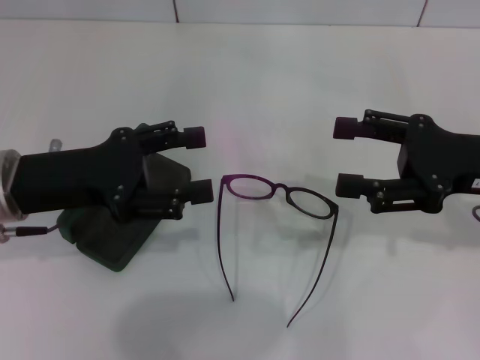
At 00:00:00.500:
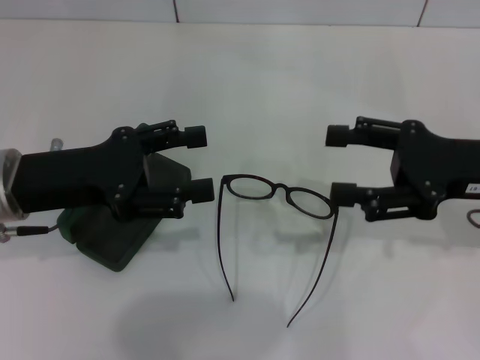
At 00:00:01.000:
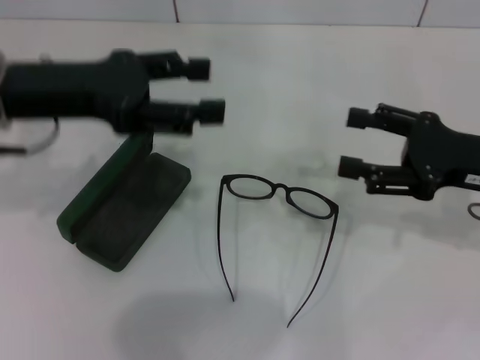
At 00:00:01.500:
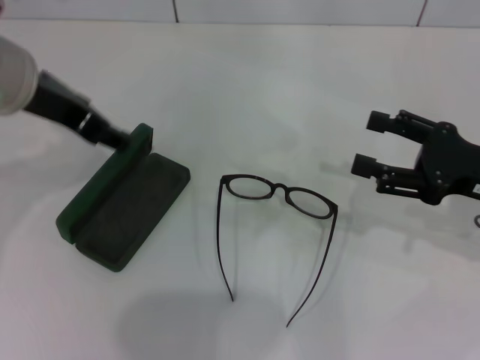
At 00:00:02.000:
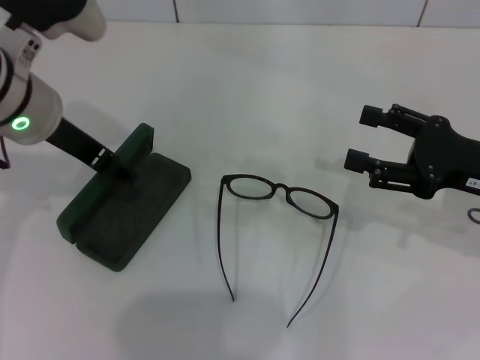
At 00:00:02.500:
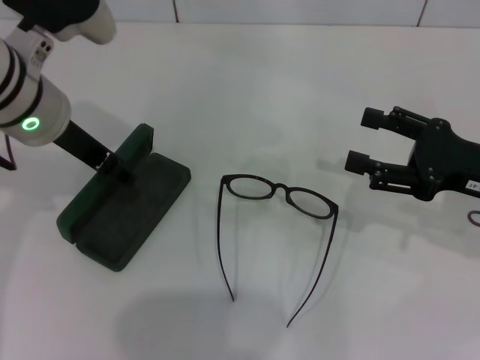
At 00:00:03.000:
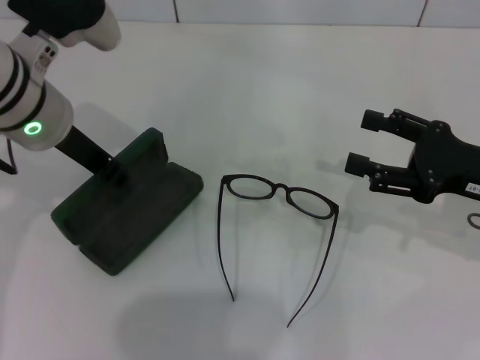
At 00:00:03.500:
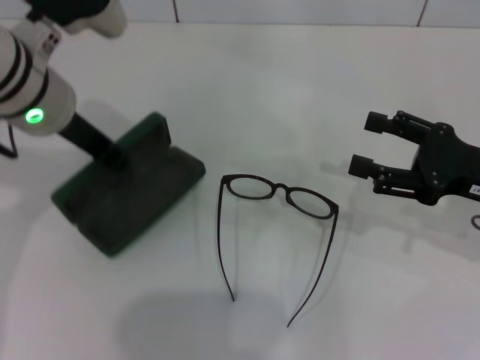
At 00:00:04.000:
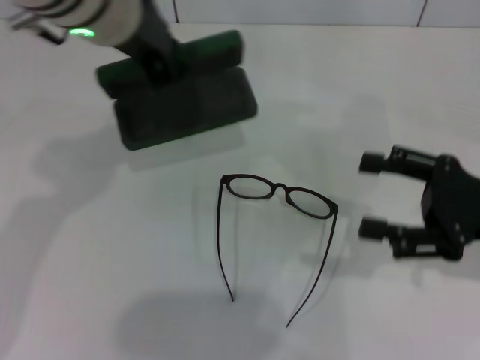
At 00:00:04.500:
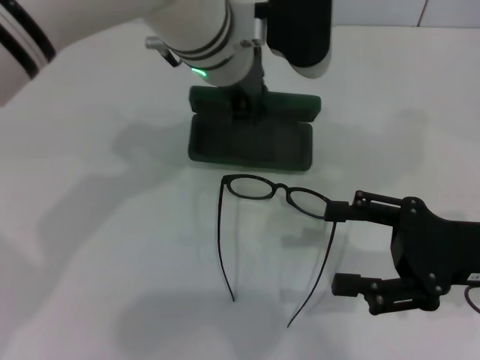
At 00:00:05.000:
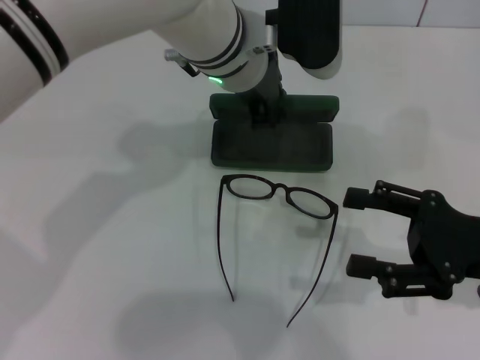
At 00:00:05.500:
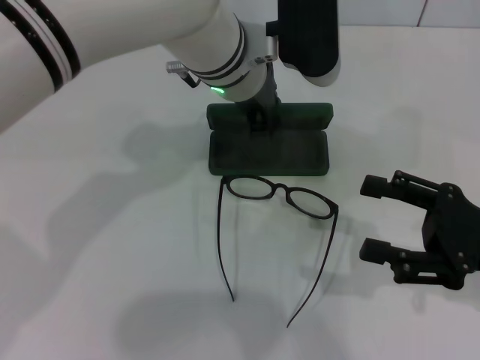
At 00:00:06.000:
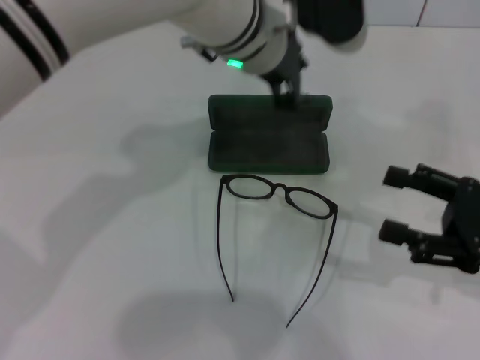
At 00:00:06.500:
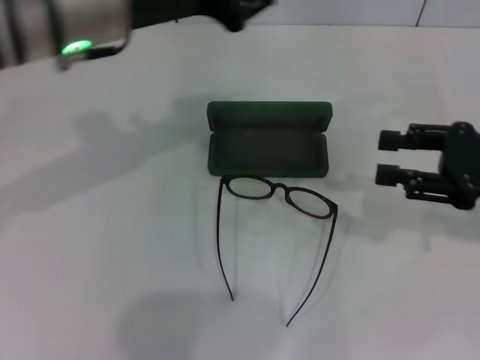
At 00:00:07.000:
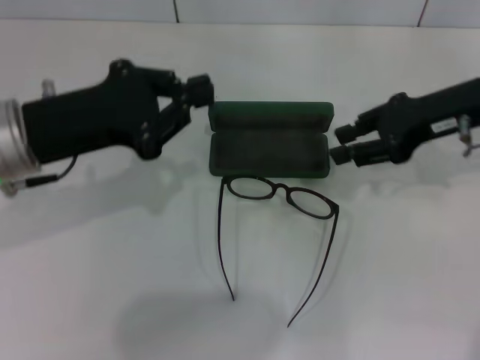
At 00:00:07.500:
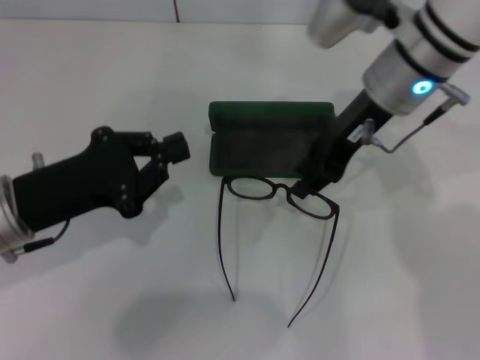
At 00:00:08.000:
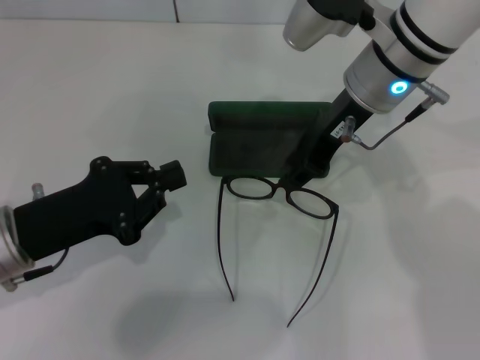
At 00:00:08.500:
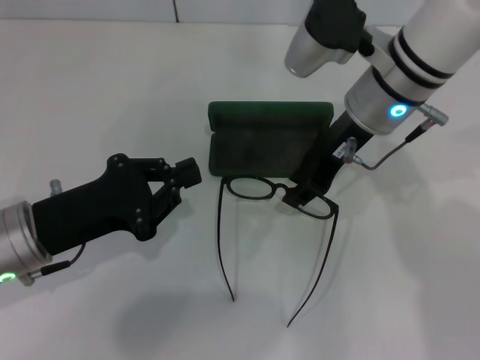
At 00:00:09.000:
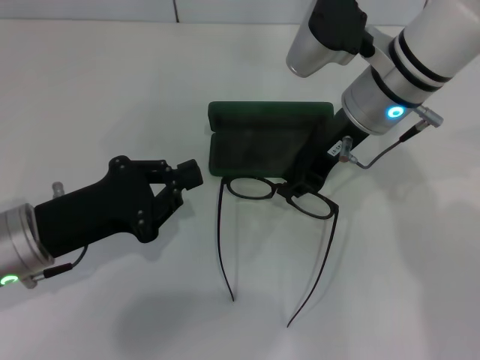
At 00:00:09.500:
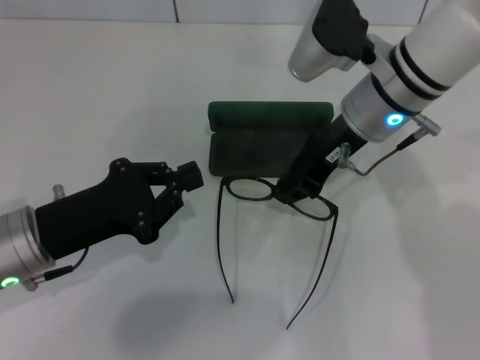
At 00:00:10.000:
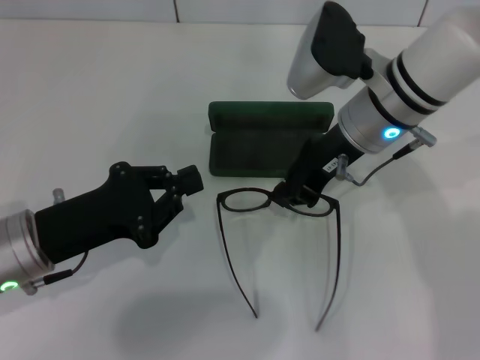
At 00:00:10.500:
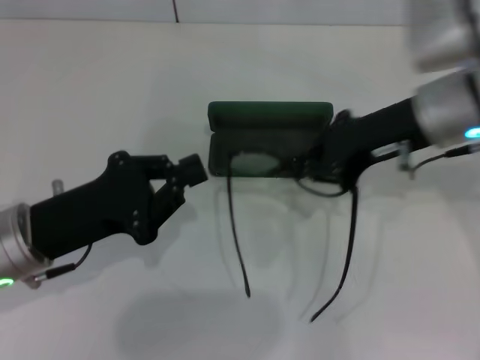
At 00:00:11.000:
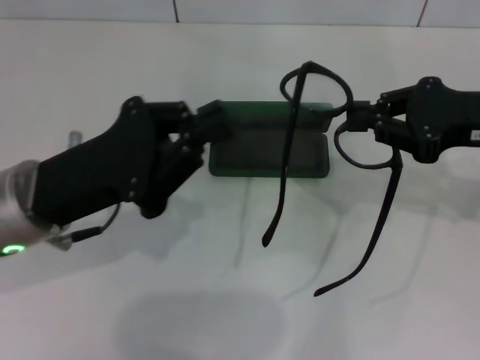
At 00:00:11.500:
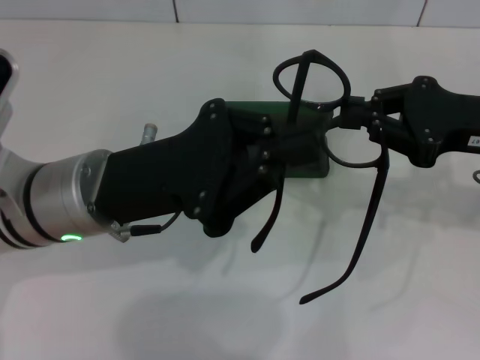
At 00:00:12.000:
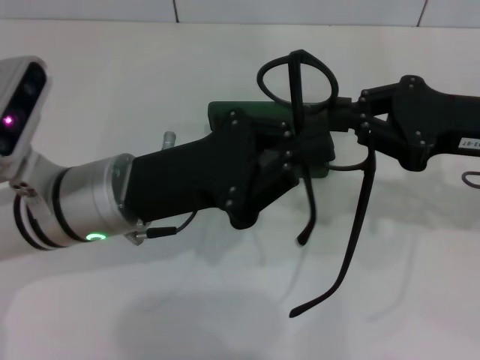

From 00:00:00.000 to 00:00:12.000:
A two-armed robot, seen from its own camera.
Step, from 00:00:00.000 to 00:00:03.000: Grab the glasses case with your left hand.
Step, from 00:00:03.500 to 00:00:05.500: Place the glasses case in the center of the table with your left hand.
Step, from 00:00:06.000 to 00:00:09.500: Grab the eyeglass frame with your right hand.
From 00:00:00.000 to 00:00:02.000: The left gripper is displaced upward and forward by approximately 10 cm.
From 00:00:02.000 to 00:00:04.000: The left gripper is displaced to the right and upward by roughly 10 cm, and closes up.
From 00:00:04.000 to 00:00:06.000: The left gripper moves to the right and downward, some 10 cm.
From 00:00:06.000 to 00:00:08.000: The left gripper travels to the left, backward and downward by approximately 30 cm, and closes up; the right gripper shifts some 25 cm to the left, forward and upward, and closes up.
From 00:00:08.000 to 00:00:10.000: The right gripper closes.
From 00:00:10.000 to 00:00:12.000: The left gripper shifts approximately 10 cm to the right. Meanwhile the right gripper is displaced to the right and backward by about 15 cm.

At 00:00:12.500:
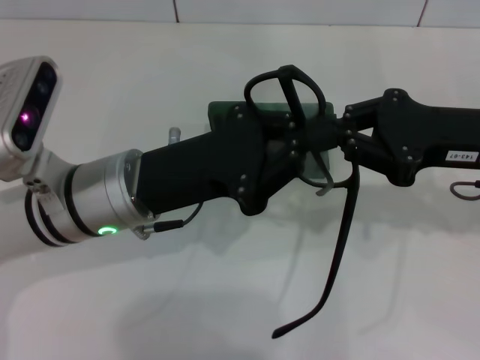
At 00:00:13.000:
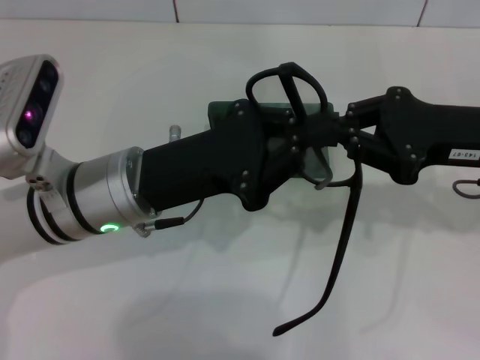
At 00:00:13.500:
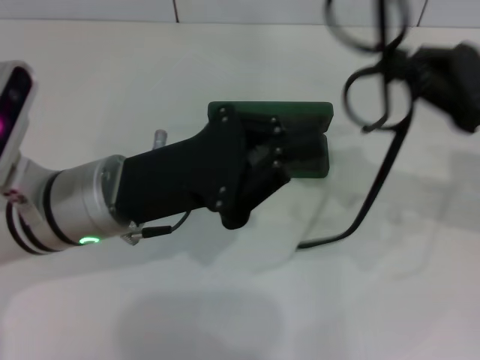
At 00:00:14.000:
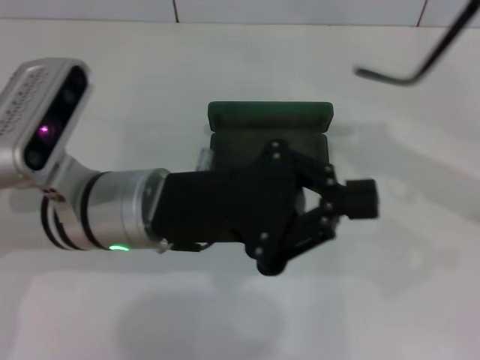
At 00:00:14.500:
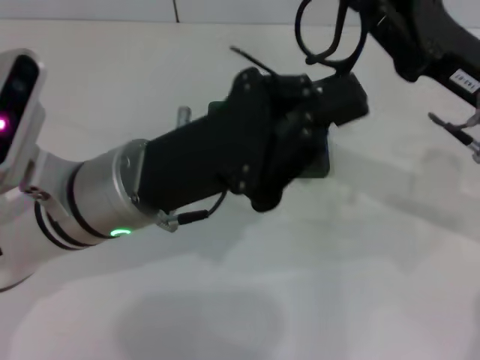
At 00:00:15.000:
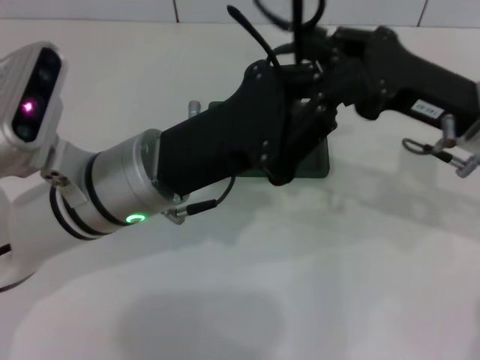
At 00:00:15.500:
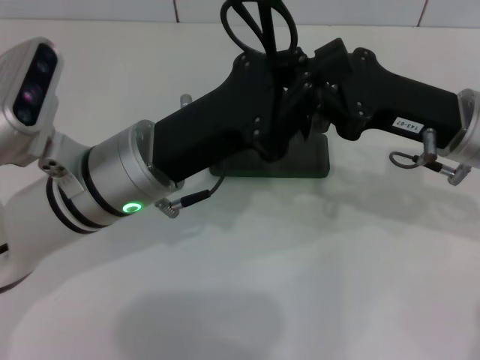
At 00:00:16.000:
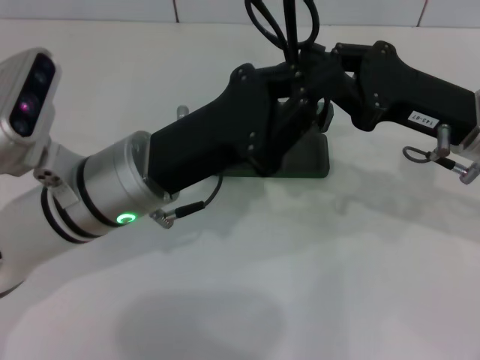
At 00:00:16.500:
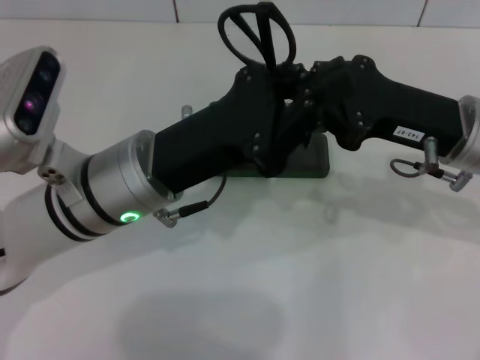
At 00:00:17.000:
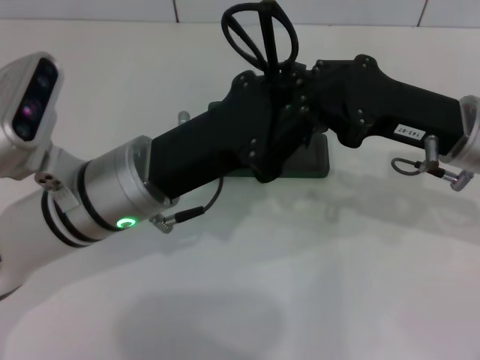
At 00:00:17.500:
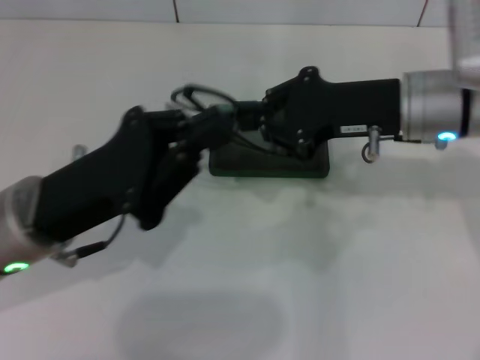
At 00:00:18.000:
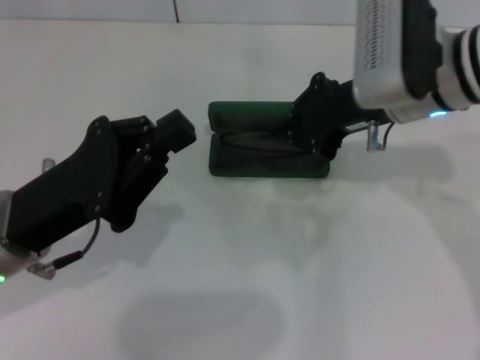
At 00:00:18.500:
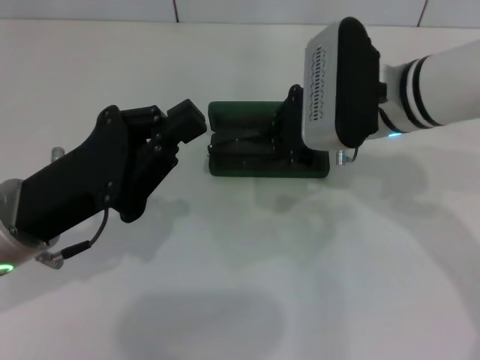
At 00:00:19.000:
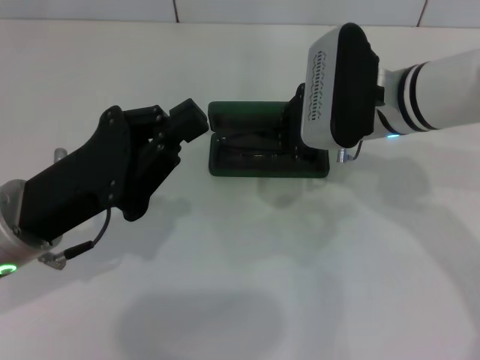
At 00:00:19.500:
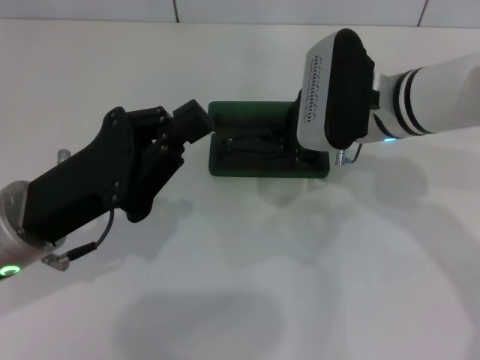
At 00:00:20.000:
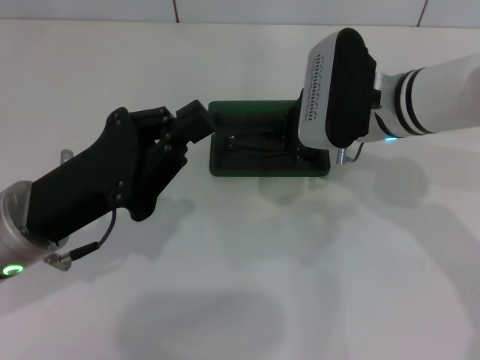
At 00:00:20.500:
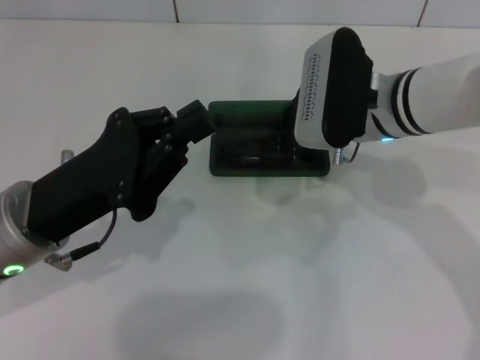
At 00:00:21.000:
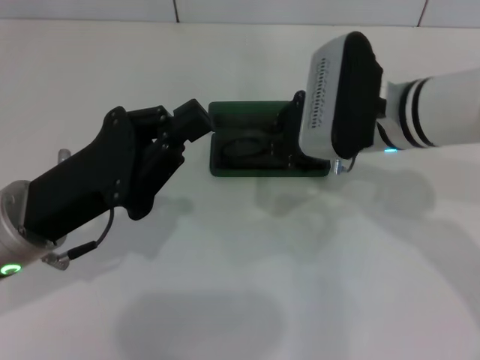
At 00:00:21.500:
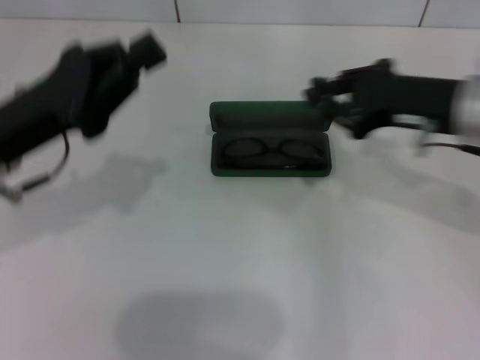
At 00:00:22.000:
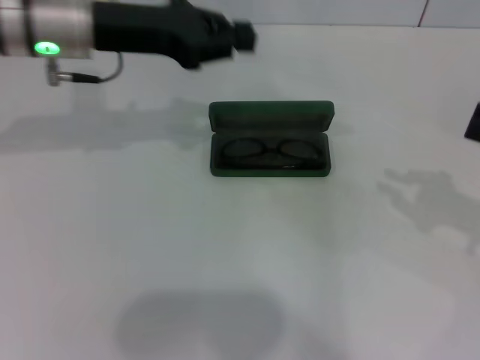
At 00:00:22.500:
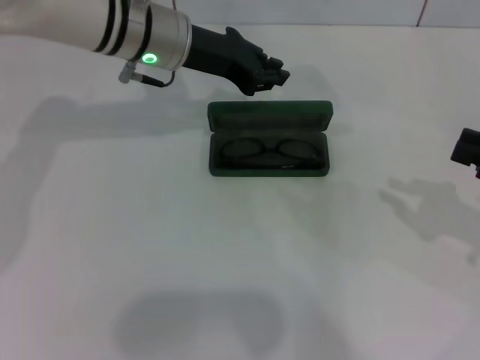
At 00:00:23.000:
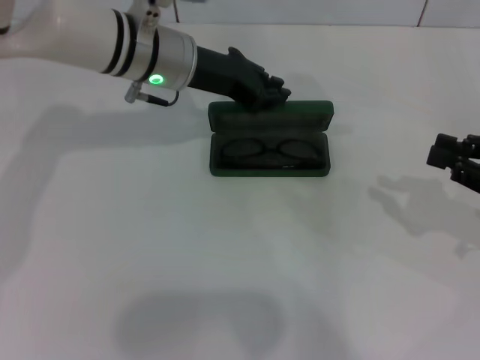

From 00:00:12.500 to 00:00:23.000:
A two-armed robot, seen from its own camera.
Step, from 00:00:12.500 to 00:00:16.500: Fold the frame with your left hand.
Step, from 00:00:17.000 to 00:00:20.500: Put the glasses into the case with your right hand.
From 00:00:16.500 to 00:00:19.000: The left gripper heads to the left, covering approximately 10 cm; the right gripper moves to the left and forward, some 10 cm.
From 00:00:19.000 to 00:00:21.000: The grippers make only small movements.
From 00:00:21.000 to 00:00:23.000: The right gripper heads to the right, covering roughly 25 cm, while the left gripper travels forward and to the right by about 20 cm.

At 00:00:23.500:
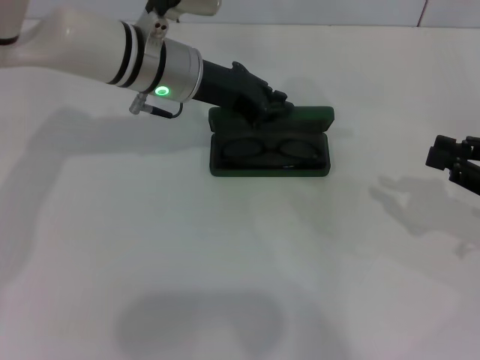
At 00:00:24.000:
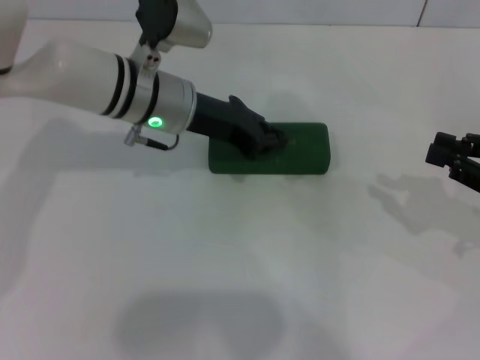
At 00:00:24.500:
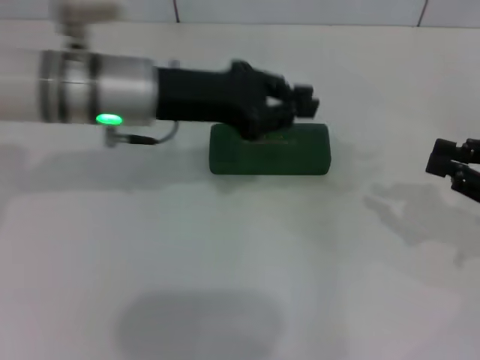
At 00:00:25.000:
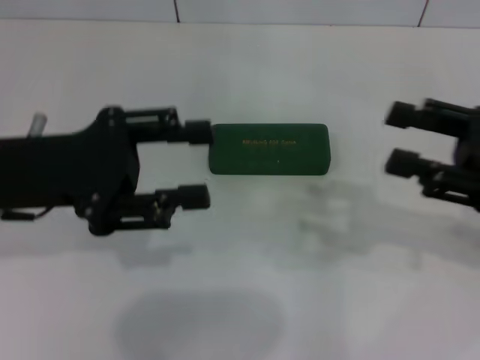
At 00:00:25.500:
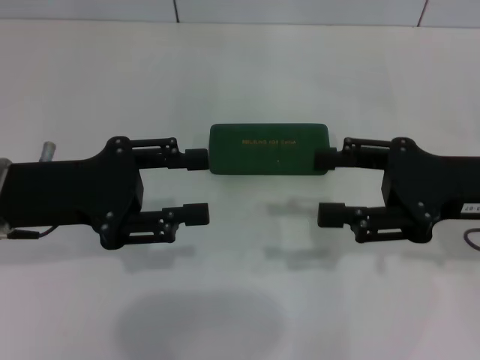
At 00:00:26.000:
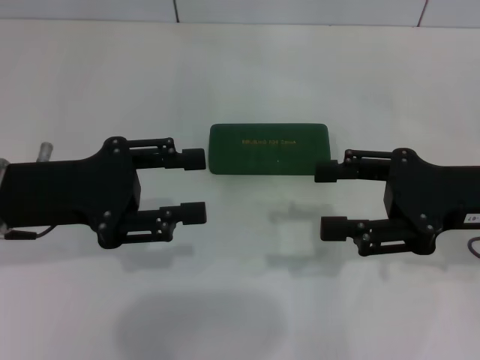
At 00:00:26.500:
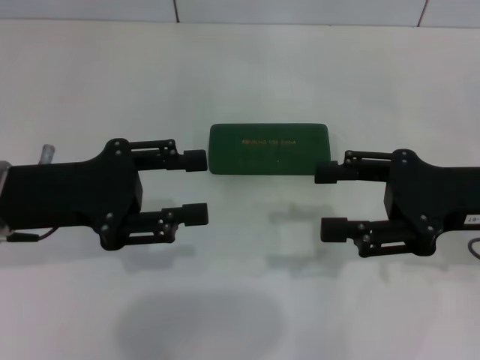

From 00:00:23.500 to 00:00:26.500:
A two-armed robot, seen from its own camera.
From 00:00:23.500 to 00:00:25.000: The right gripper moves approximately 5 cm; the left gripper is displaced backward and to the left by approximately 20 cm, and opens up.
From 00:00:25.000 to 00:00:26.500: The right gripper opens its fingers.
